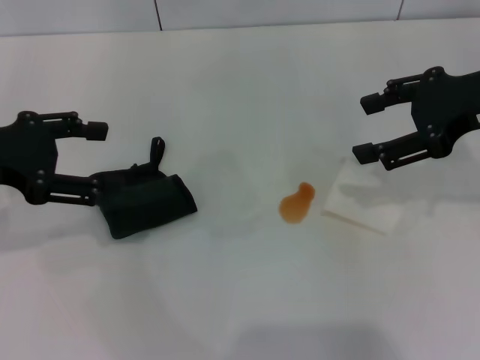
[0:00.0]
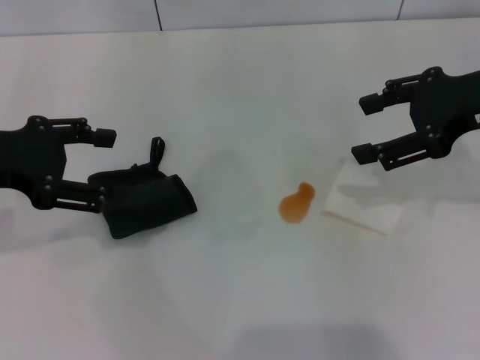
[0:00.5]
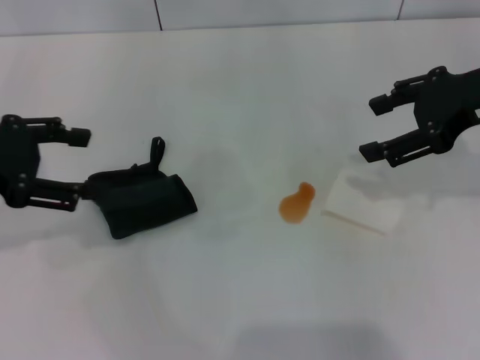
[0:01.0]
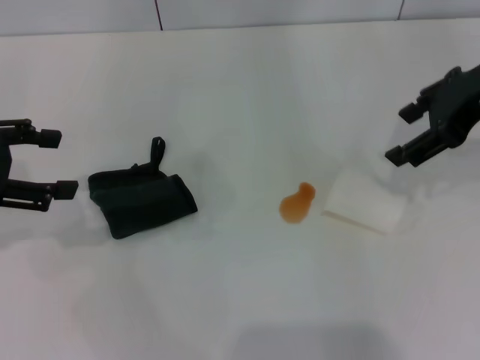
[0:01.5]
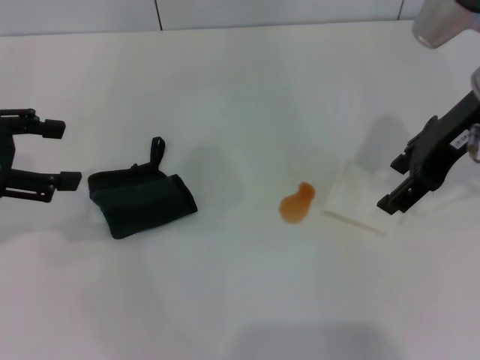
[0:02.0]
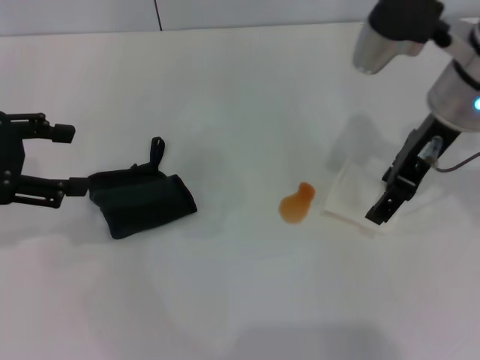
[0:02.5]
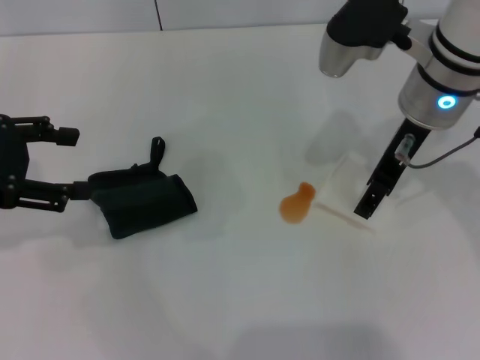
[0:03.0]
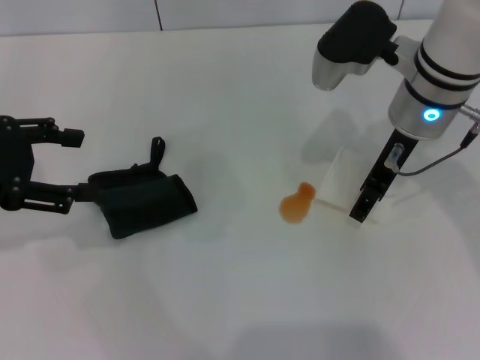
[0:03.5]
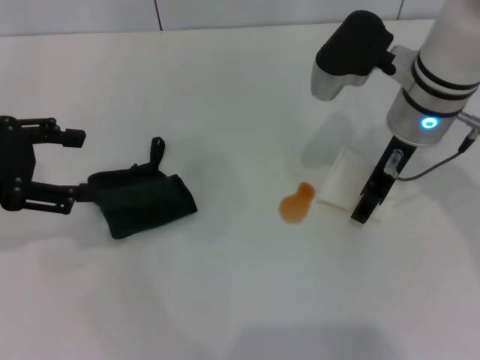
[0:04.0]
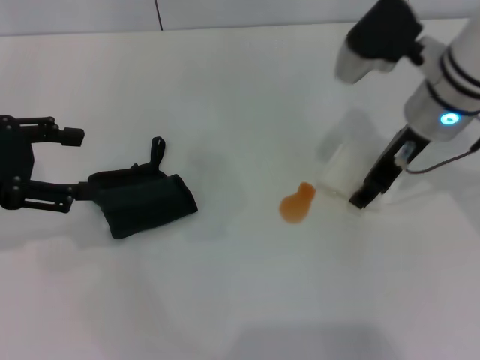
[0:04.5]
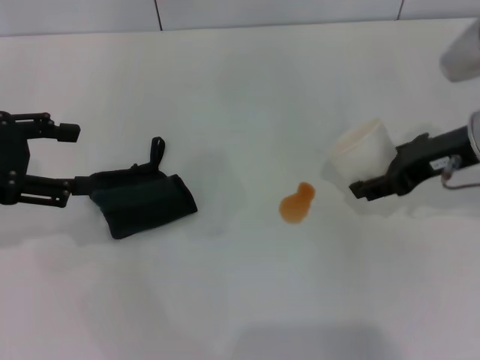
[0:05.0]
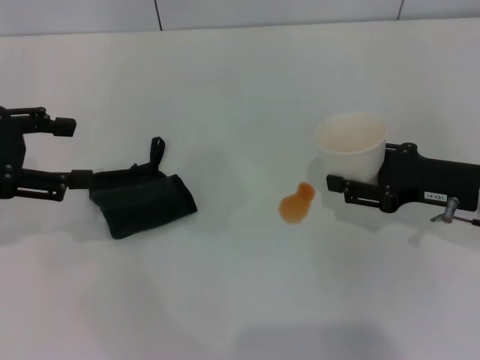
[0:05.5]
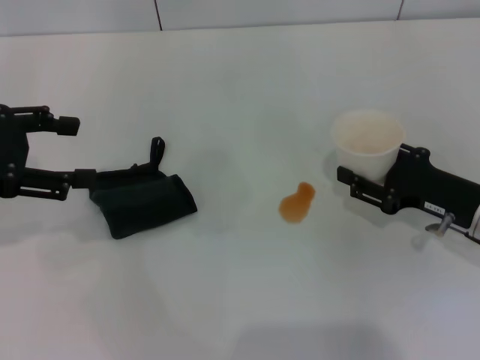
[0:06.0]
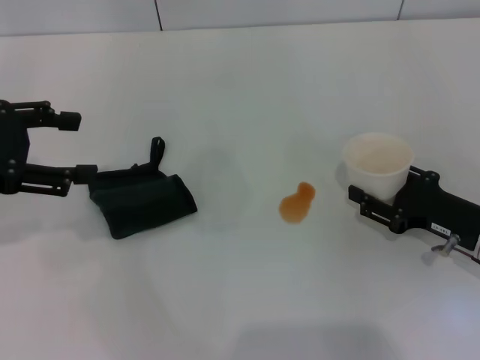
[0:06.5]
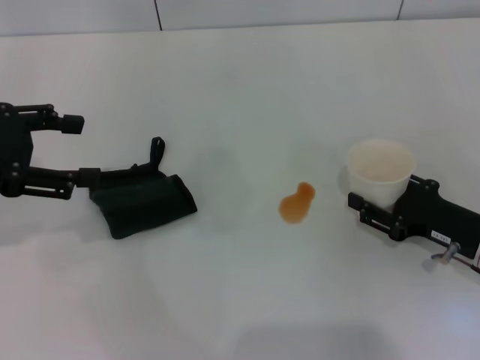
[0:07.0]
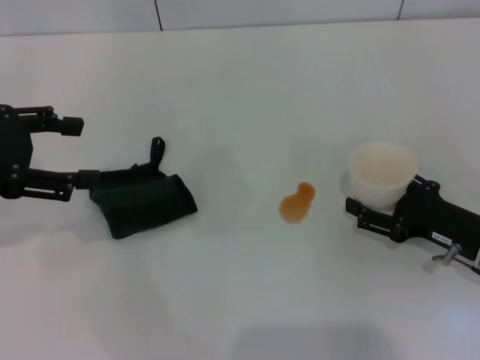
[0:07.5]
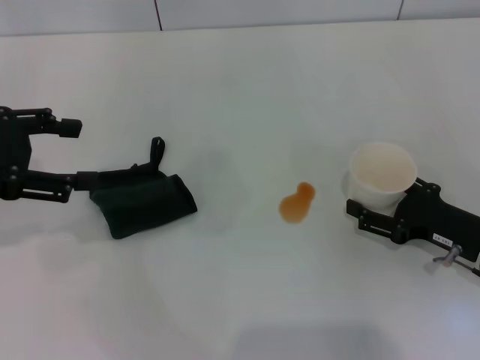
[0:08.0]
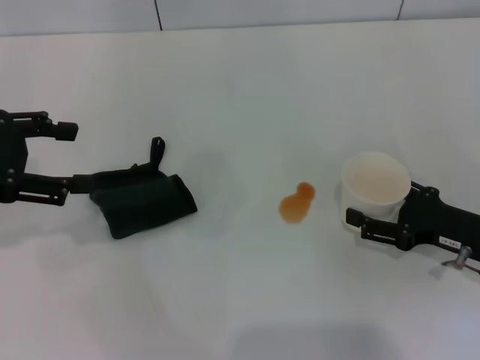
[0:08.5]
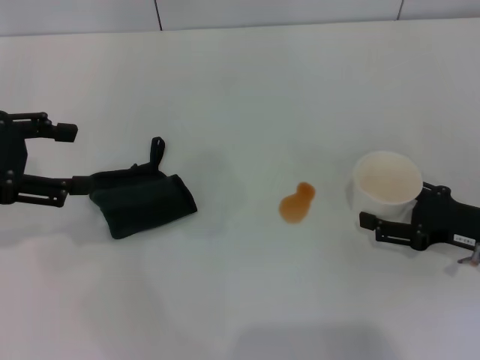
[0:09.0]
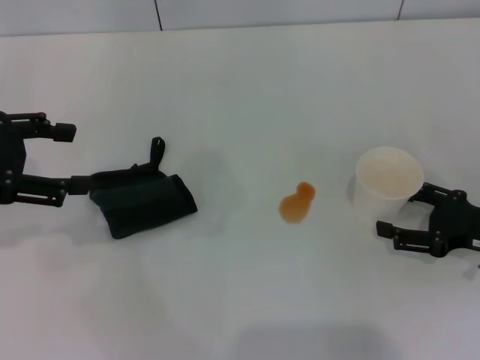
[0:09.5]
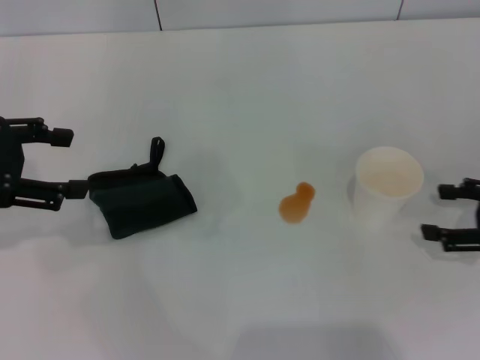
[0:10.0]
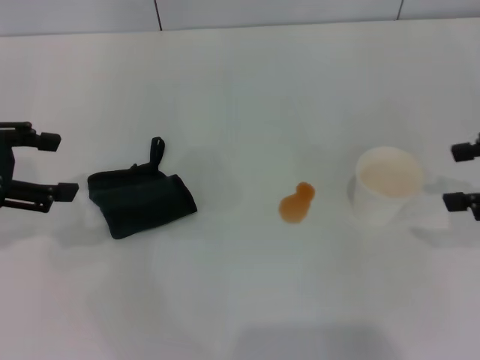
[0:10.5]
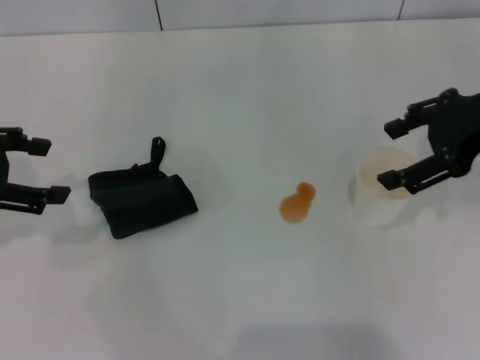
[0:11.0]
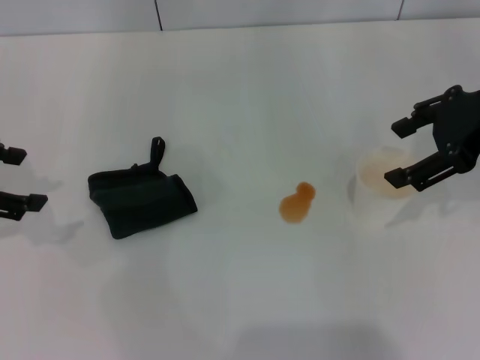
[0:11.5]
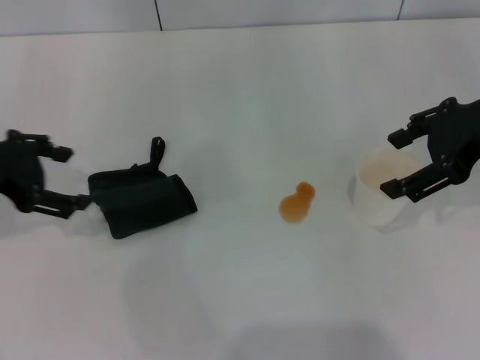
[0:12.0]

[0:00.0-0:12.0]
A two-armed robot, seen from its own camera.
Step, 0:00.0 to 0:04.0: Grasp the paper cup with the right gripper.
Step, 0:04.5 to 0:09.5: Stand the paper cup upright with the right gripper.
0:00.0 to 0:02.0: The right gripper travels to the left by approximately 5 cm.
0:02.0 to 0:04.0: The right gripper heads to the left and downward, covering about 10 cm.
0:04.0 to 0:06.0: The right gripper travels to the right, downward and backward by about 20 cm, and closes its fingers.
0:06.0 to 0:08.0: The right gripper opens its fingers.
0:08.0 to 0:10.0: The right gripper is displaced to the right and upward by some 10 cm.
0:10.0 to 0:12.0: The right gripper shifts about 20 cm upward, to the left and forward.

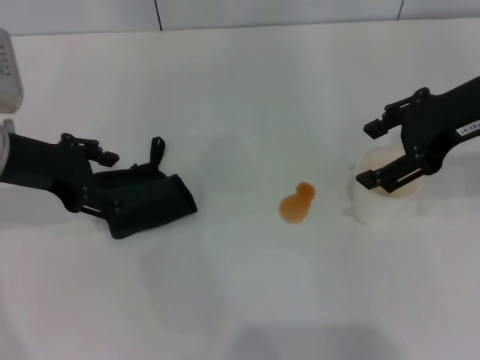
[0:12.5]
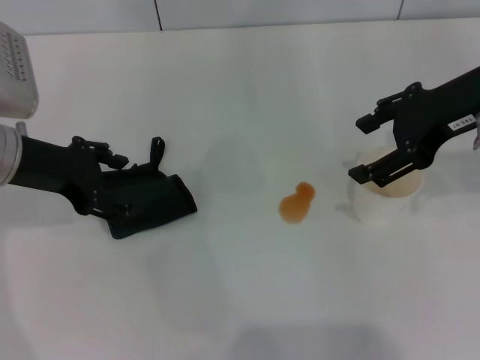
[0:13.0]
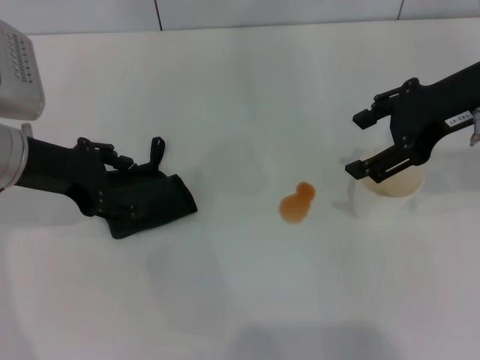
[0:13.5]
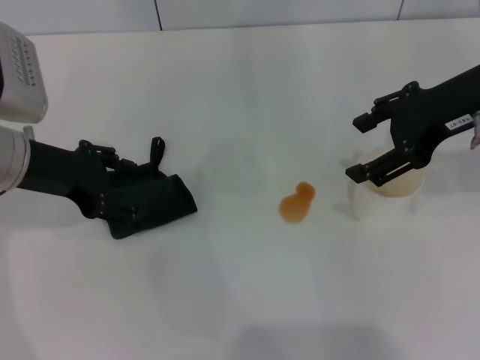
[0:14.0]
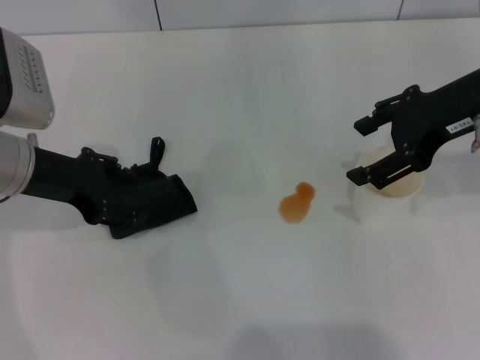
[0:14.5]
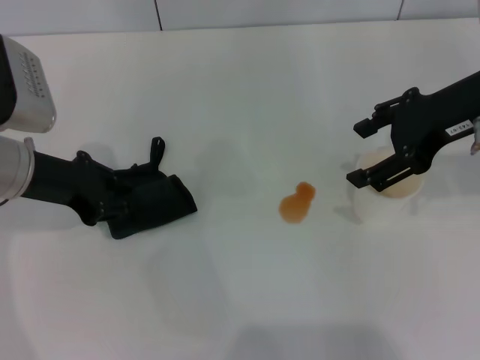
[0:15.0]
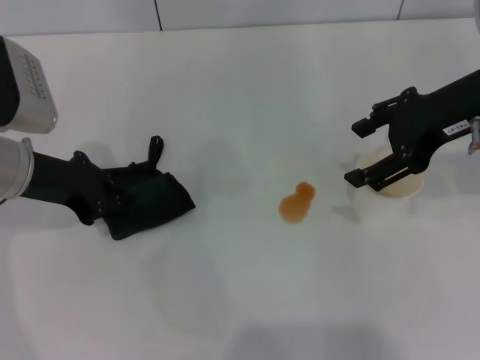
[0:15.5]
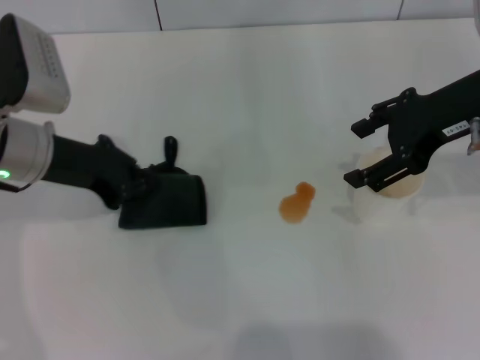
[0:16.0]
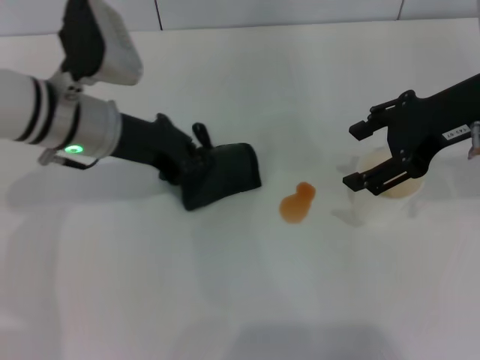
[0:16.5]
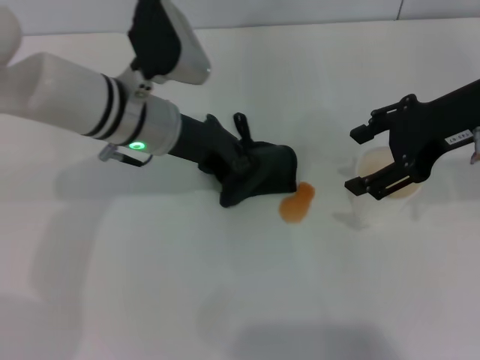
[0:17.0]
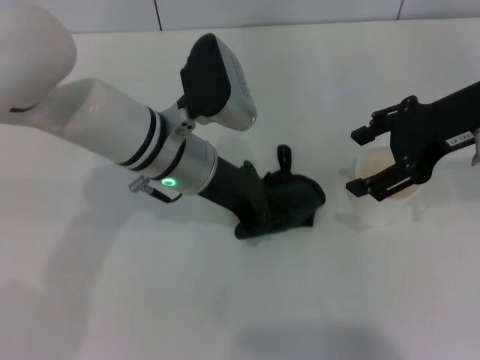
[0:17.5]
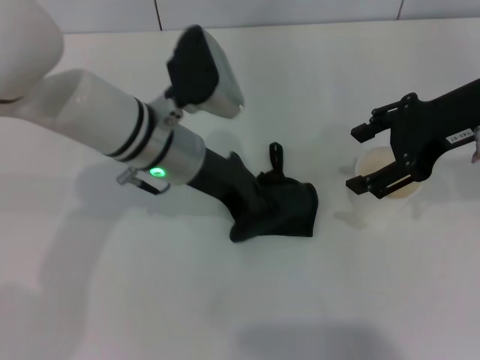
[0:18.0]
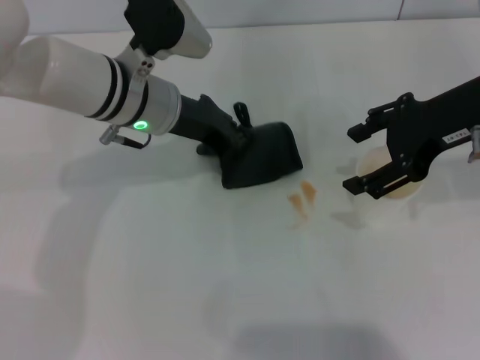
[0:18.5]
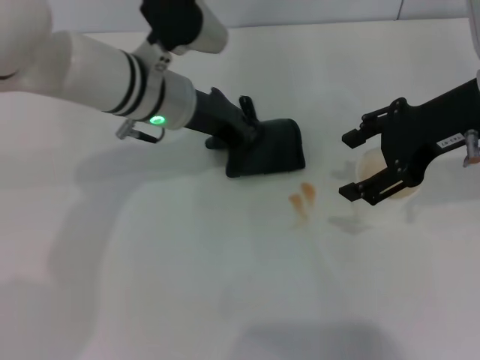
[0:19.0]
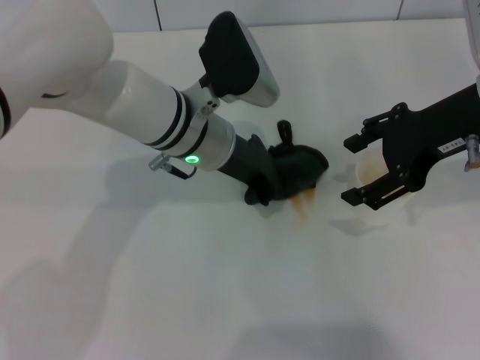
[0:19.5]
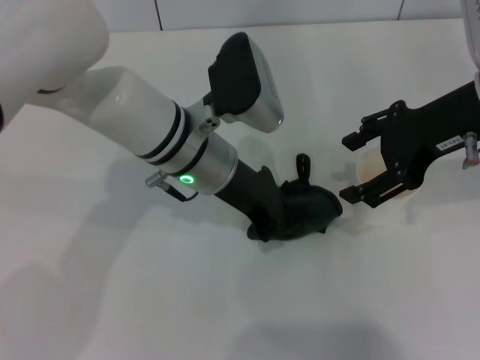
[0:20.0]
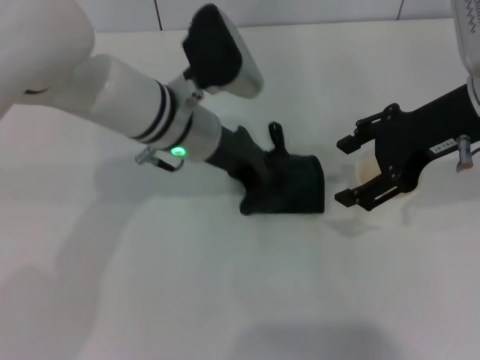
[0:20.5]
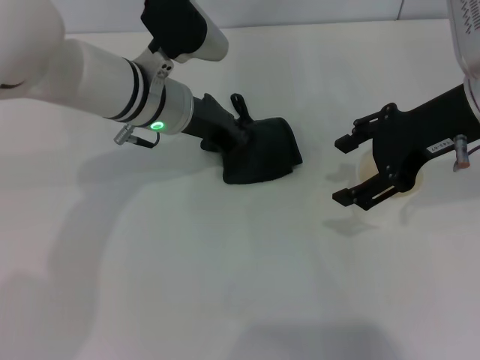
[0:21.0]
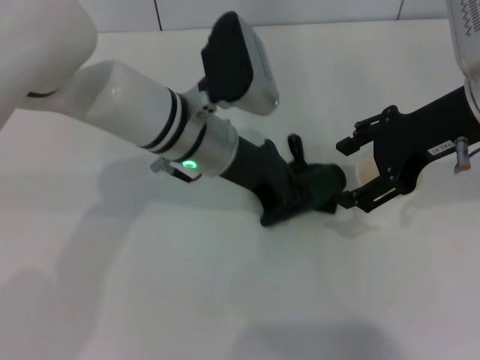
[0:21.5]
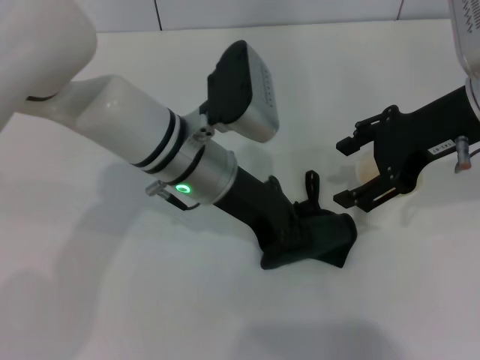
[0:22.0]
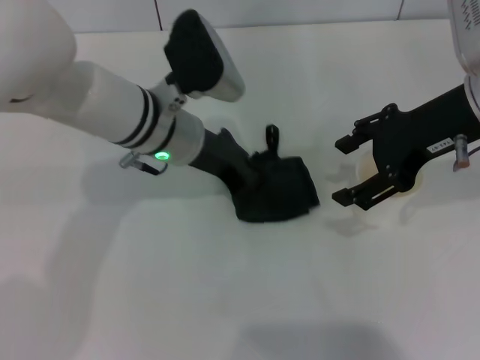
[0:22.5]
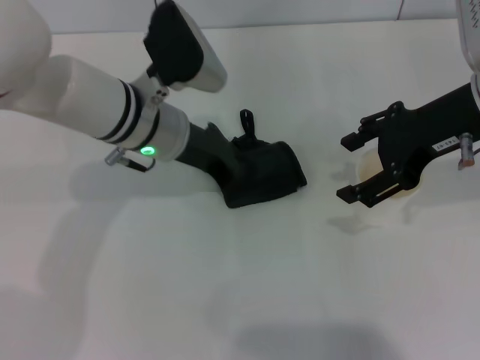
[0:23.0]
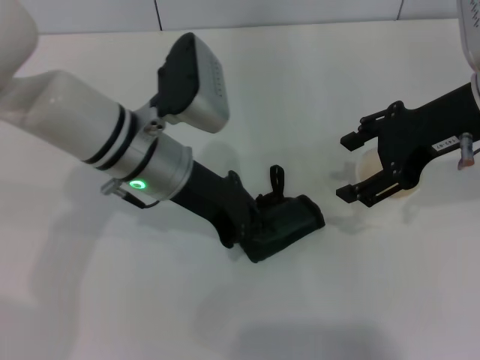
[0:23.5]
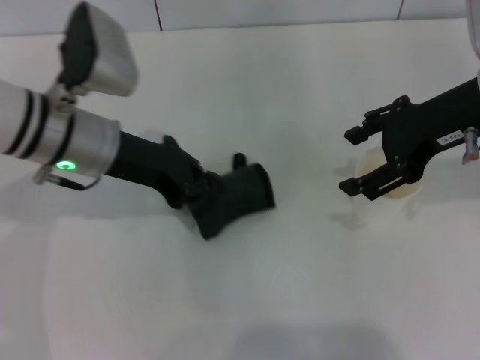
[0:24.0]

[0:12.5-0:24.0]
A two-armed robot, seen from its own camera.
Step, 0:12.5 to 0:15.5: Grasp the rag with the left gripper.
Step, 0:16.0 to 0:24.0: Wipe the stains off the table with the left gripper.
0:12.5 to 0:14.5: The grippers stay close to where they were, moving slightly.
0:14.5 to 0:16.5: The left gripper is displaced to the right by roughly 5 cm, and closes its fingers.
0:16.5 to 0:18.5: The left gripper shifts some 5 cm to the right.
0:18.5 to 0:20.0: The left gripper shifts roughly 5 cm to the right.
0:22.0 to 0:24.0: The left gripper heads to the left, covering roughly 10 cm.

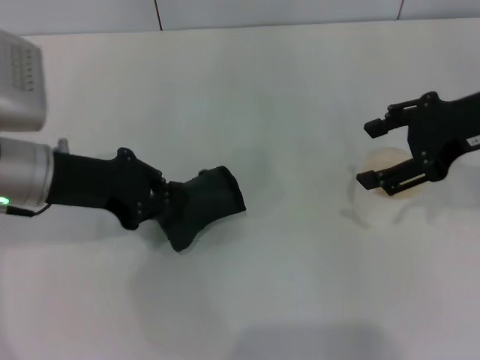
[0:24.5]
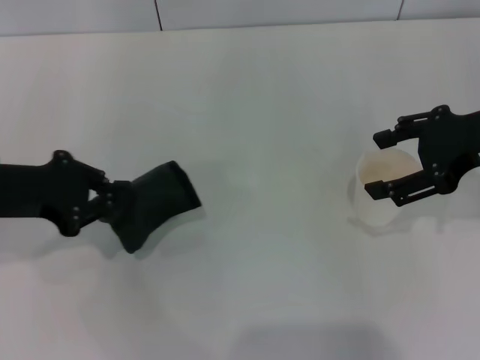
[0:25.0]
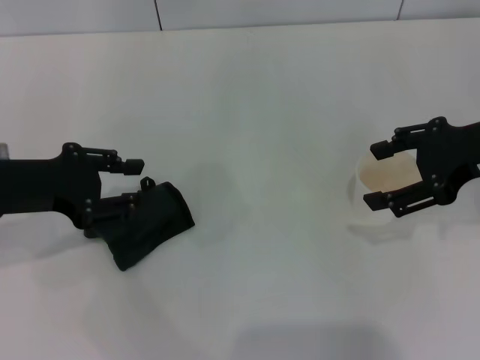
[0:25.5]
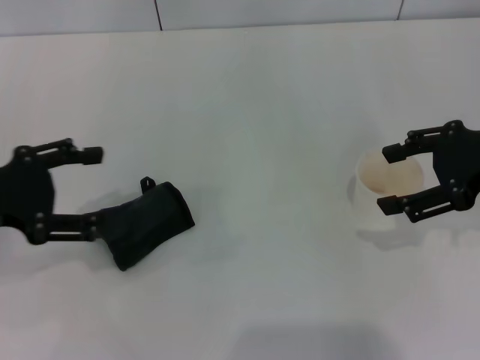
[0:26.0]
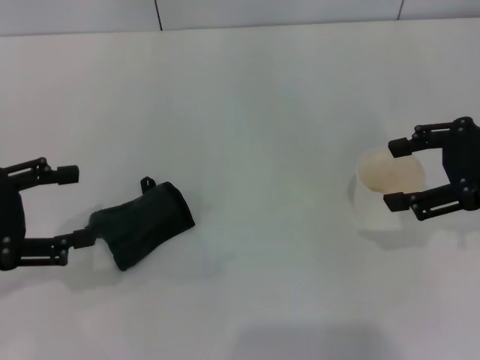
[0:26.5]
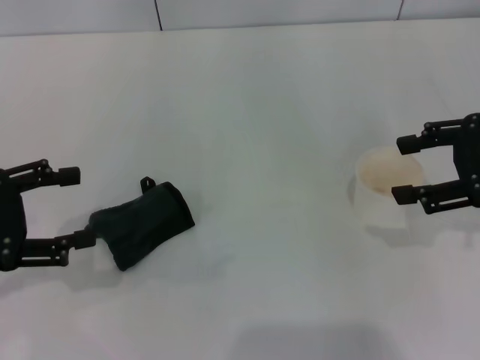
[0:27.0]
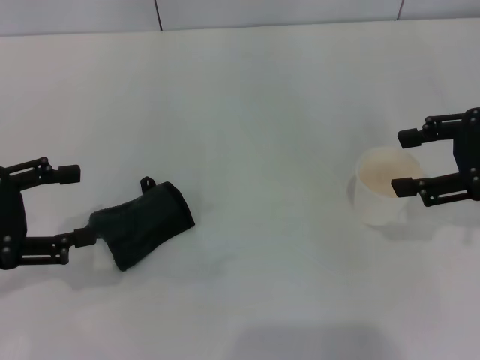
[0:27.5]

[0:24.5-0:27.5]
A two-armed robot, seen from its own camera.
Step, 0:24.5 to 0:25.5: Place the rag on the table with the left gripper.
0:24.5 to 0:26.0: The left gripper is displaced to the left and backward by approximately 10 cm, and opens.
0:26.0 to 0:27.5: The grippers make only small movements.
